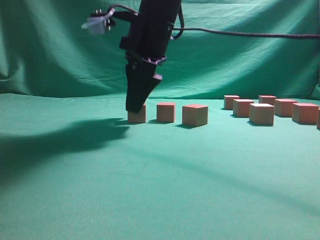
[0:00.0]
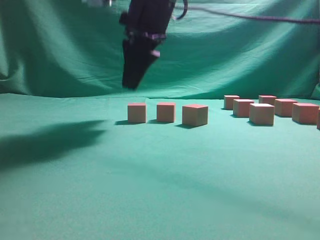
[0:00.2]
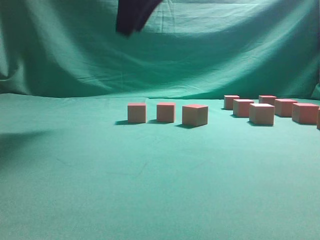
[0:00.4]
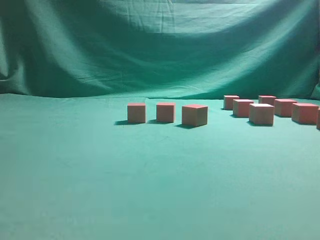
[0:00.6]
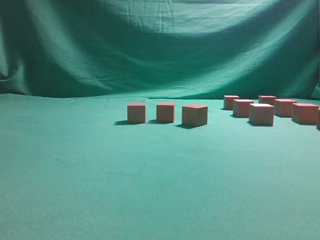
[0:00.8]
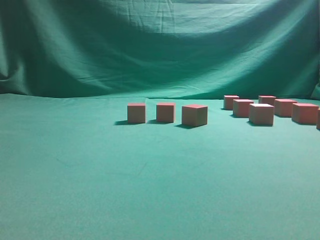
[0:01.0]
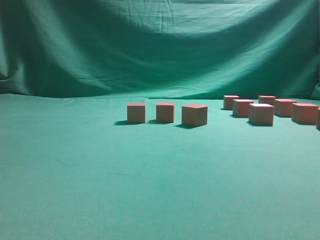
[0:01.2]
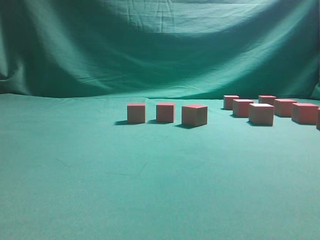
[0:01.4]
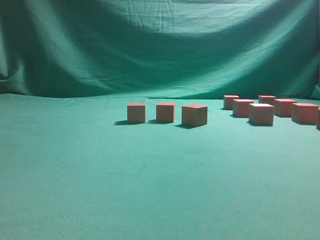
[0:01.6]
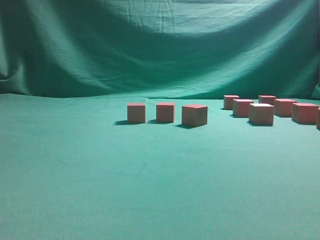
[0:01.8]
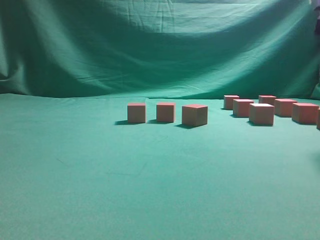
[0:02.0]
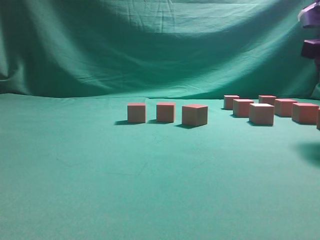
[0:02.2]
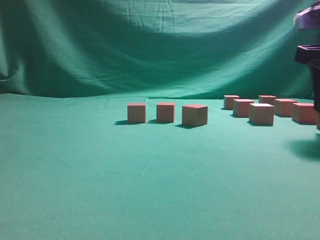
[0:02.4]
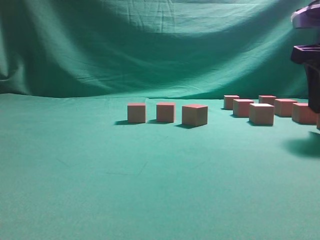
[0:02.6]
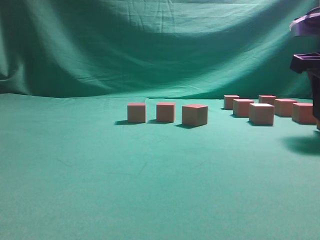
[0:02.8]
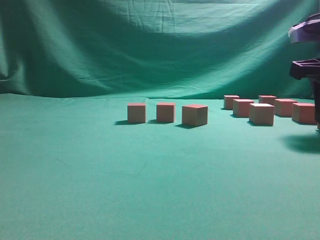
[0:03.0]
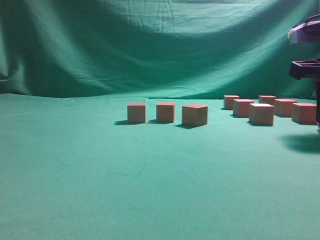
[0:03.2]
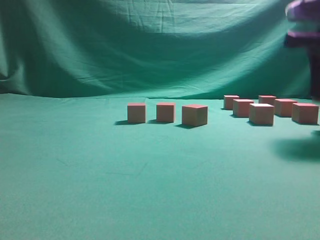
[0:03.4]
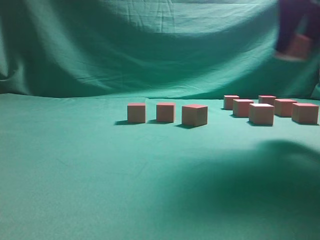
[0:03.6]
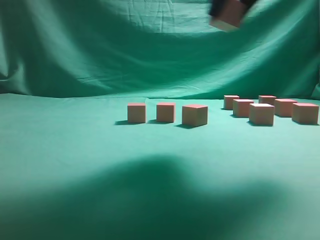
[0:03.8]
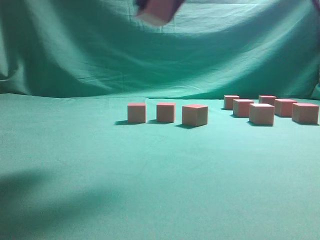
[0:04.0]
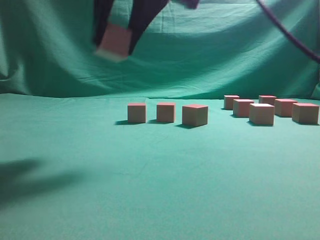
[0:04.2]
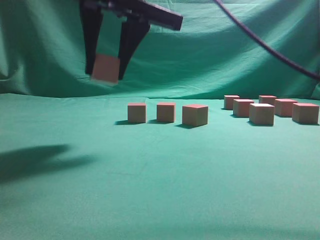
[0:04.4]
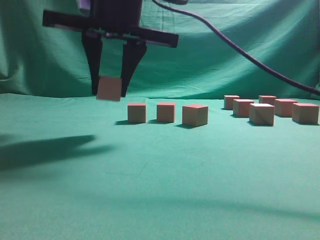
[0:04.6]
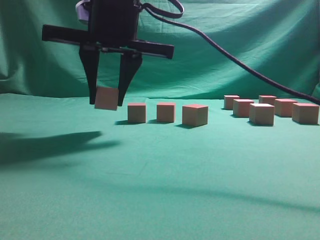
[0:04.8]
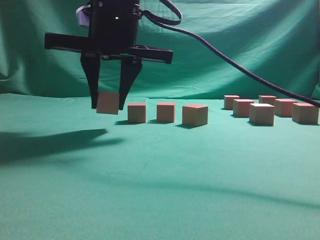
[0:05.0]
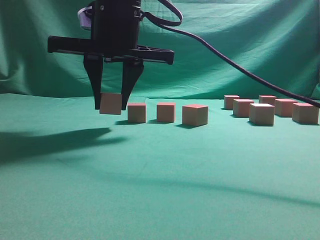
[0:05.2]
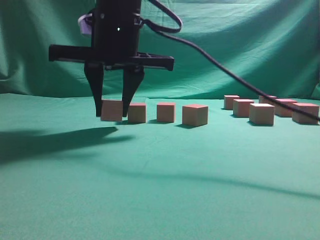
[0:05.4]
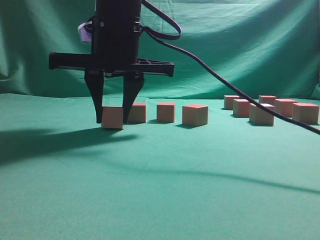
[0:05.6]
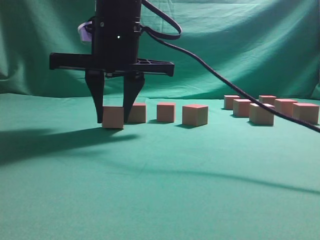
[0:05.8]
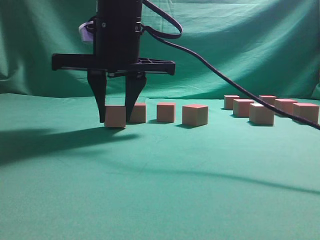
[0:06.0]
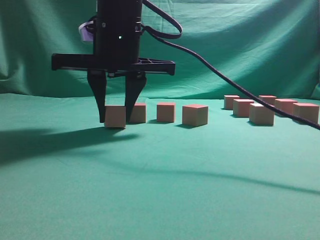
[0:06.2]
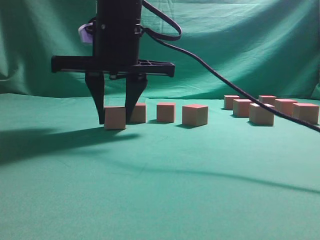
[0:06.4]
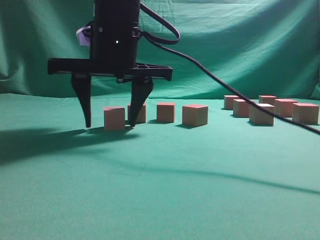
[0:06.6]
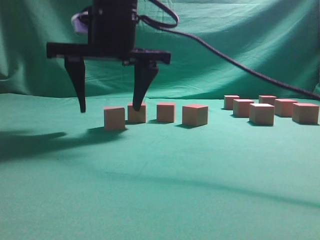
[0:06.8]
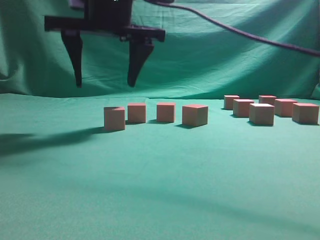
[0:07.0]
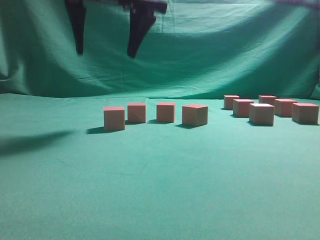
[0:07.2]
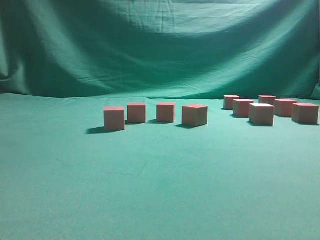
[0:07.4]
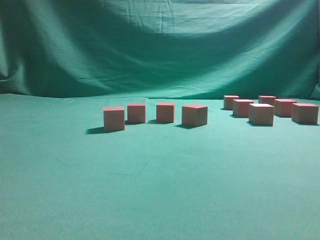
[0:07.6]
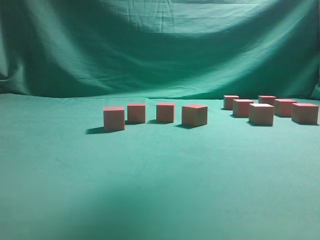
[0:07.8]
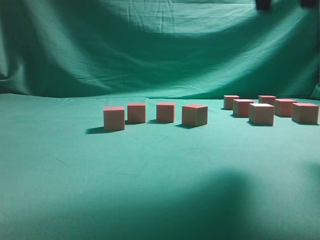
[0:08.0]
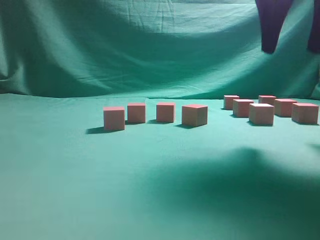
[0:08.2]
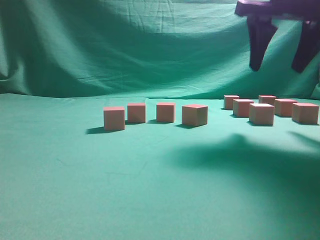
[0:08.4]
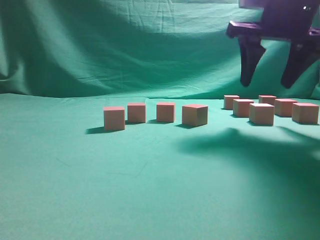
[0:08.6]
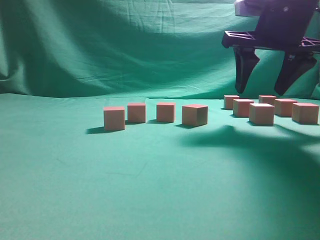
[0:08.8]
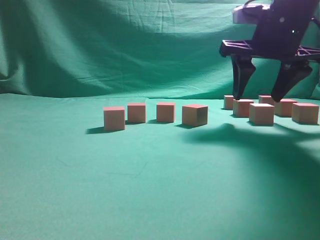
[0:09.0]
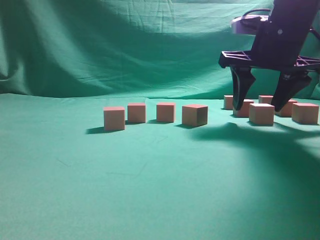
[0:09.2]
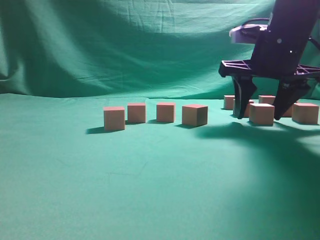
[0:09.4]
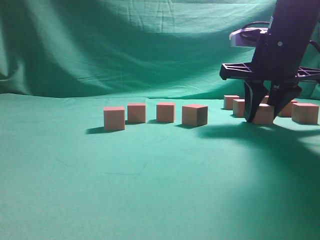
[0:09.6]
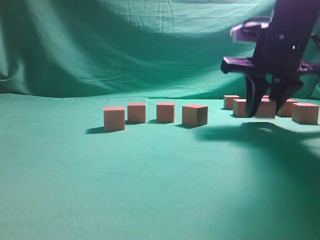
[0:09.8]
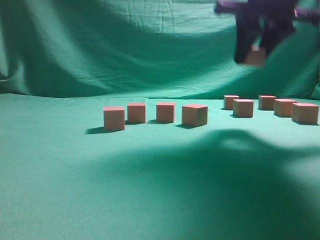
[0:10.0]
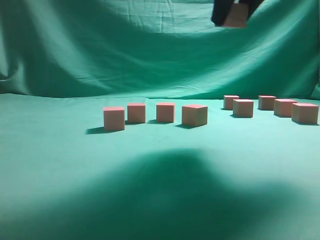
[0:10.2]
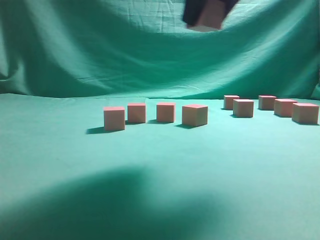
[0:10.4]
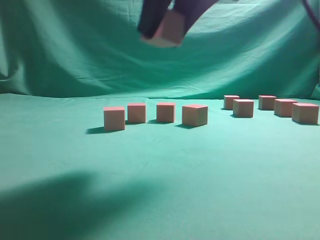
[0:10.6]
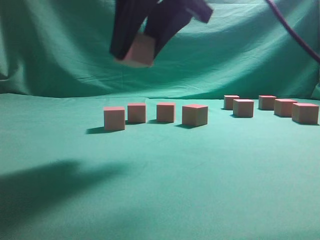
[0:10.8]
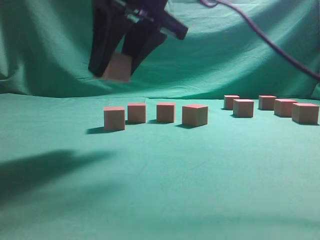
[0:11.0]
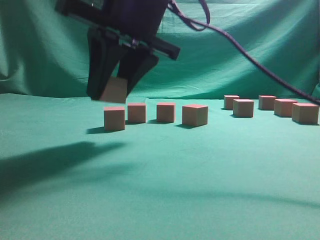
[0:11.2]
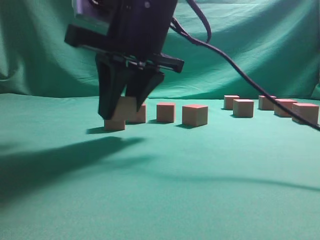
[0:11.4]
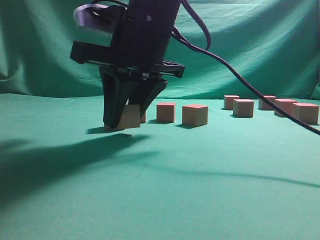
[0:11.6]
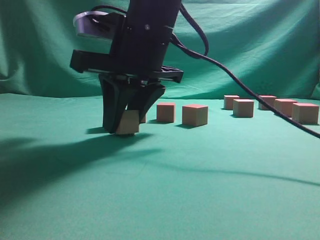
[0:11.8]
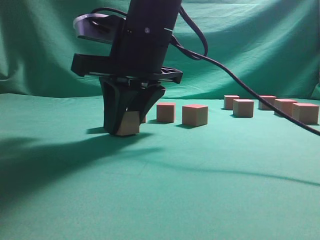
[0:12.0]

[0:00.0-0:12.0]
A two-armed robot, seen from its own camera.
Task of the whole recording: pick up the multiple cubes in two columns one by one and place them in another position on the table.
Step, 0:00.4 to 0:03.2: Pick up the block on the table.
Step, 0:03.6 to 0:07.0: Place the block at the correct position to assemble the letter S.
Step, 0:07.2 to 0:09.6: Pick up the block on the table.
0:00.0 to 0:01.6: The right gripper moves to the right and backward, some 30 cm.
0:01.6 to 0:03.0: The right gripper is displaced downward and forward by roughly 15 cm.
0:03.0 to 0:04.4: The right gripper is displaced to the left by some 30 cm.
0:04.4 to 0:06.0: The right gripper shifts some 5 cm downward.
0:06.0 to 0:07.6: The right gripper shifts about 20 cm upward, and opens up.
0:07.6 to 0:09.0: The right gripper shifts some 25 cm downward and to the right.
0:09.0 to 0:10.4: The right gripper travels backward, upward and to the left by roughly 15 cm, and closes its fingers.
0:10.4 to 0:12.0: The right gripper moves downward, to the left and forward, roughly 15 cm.

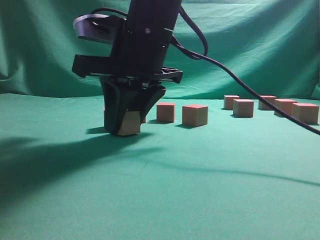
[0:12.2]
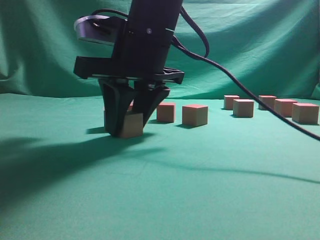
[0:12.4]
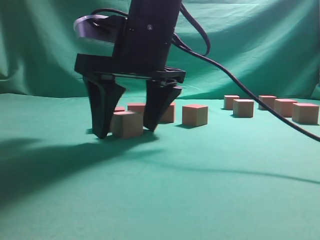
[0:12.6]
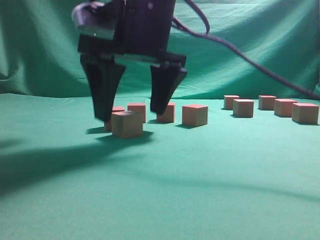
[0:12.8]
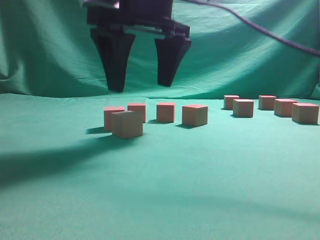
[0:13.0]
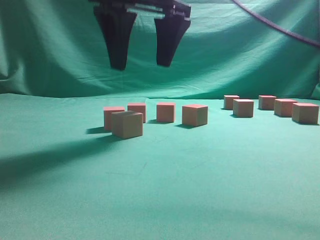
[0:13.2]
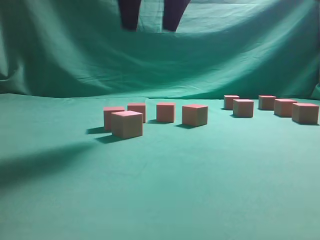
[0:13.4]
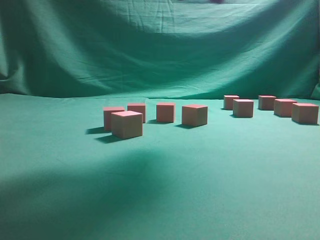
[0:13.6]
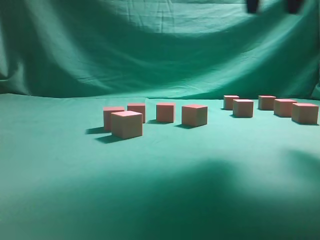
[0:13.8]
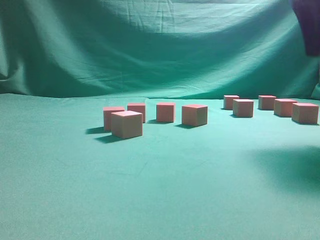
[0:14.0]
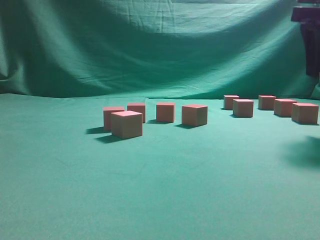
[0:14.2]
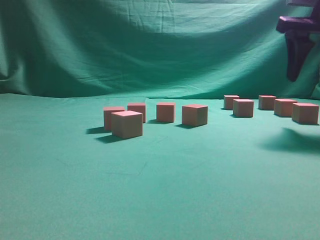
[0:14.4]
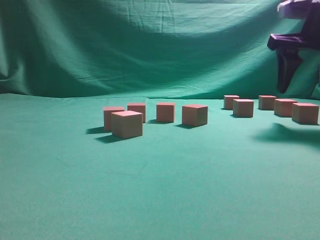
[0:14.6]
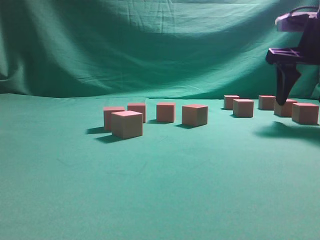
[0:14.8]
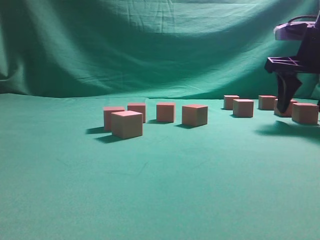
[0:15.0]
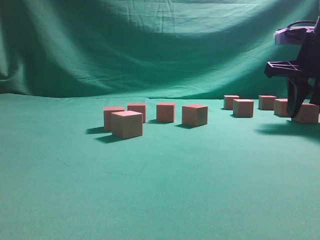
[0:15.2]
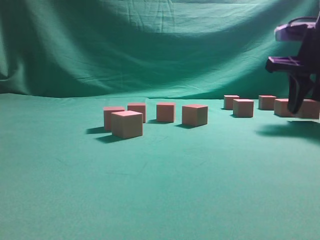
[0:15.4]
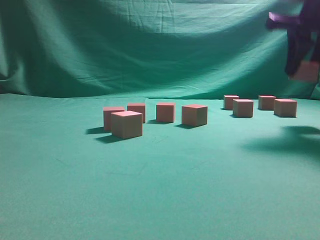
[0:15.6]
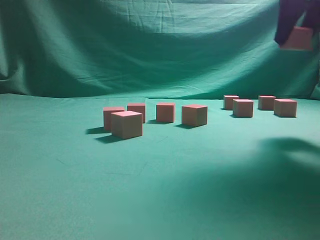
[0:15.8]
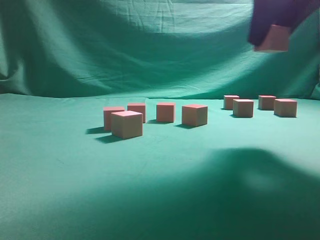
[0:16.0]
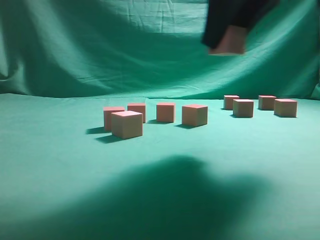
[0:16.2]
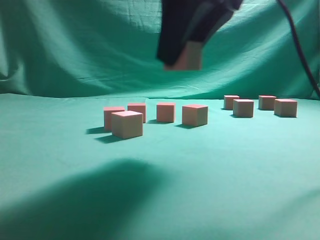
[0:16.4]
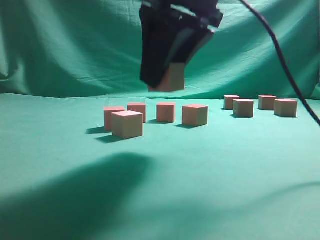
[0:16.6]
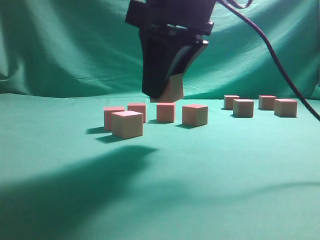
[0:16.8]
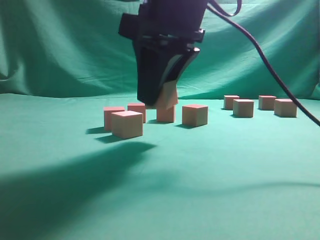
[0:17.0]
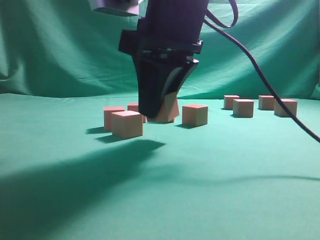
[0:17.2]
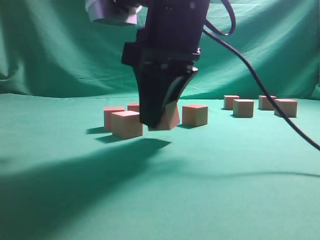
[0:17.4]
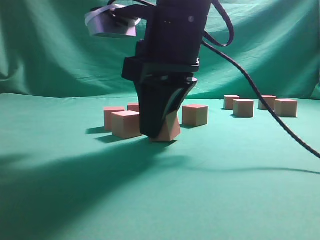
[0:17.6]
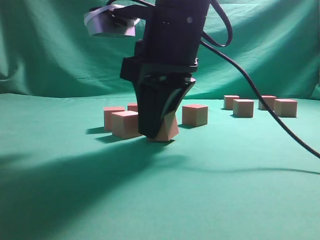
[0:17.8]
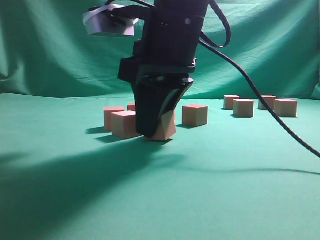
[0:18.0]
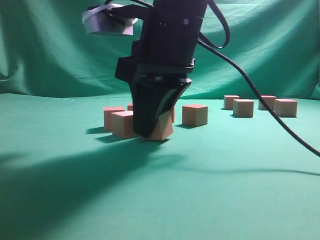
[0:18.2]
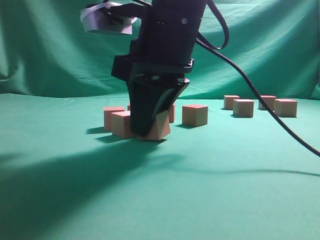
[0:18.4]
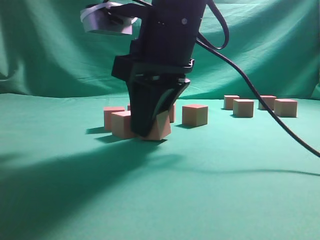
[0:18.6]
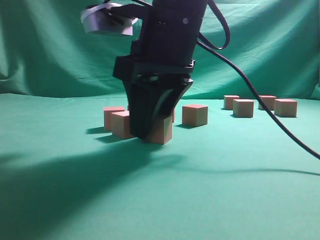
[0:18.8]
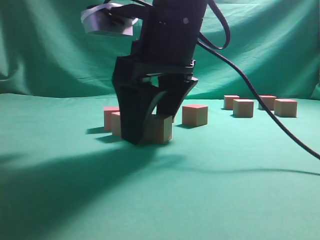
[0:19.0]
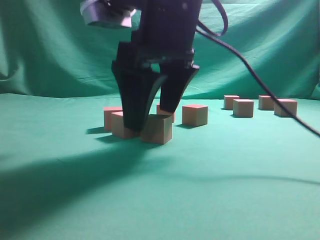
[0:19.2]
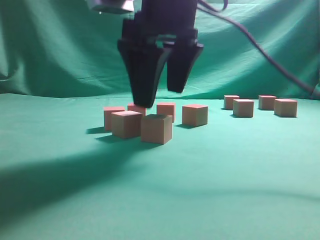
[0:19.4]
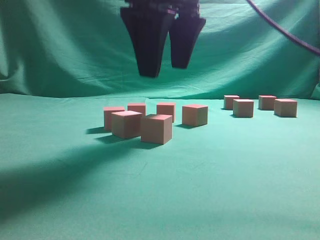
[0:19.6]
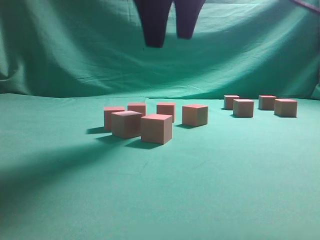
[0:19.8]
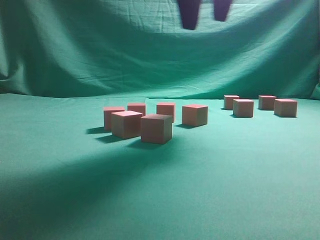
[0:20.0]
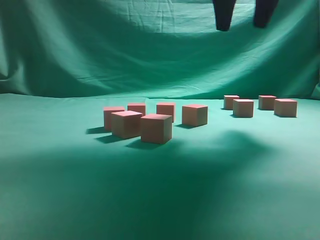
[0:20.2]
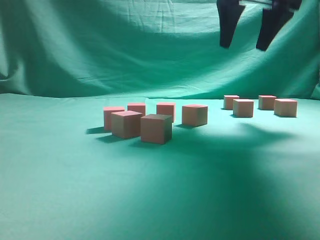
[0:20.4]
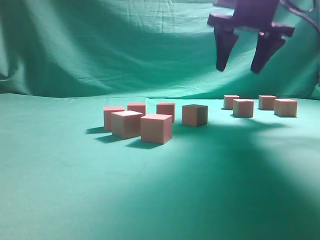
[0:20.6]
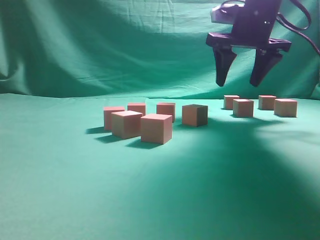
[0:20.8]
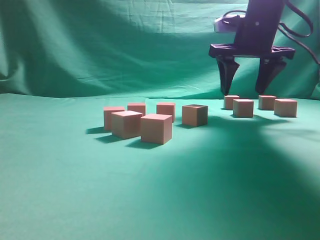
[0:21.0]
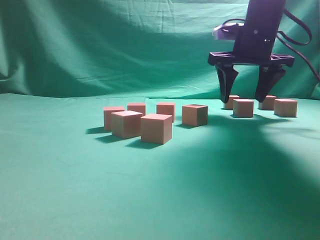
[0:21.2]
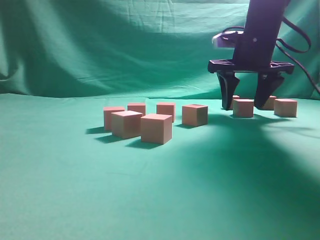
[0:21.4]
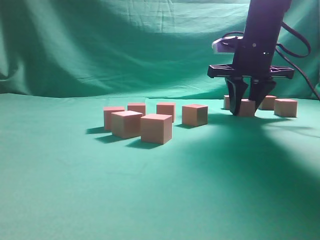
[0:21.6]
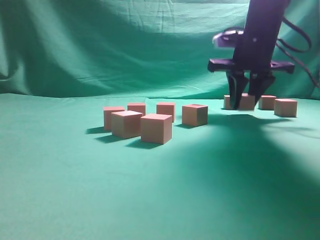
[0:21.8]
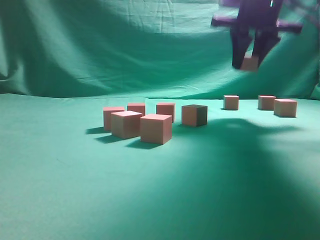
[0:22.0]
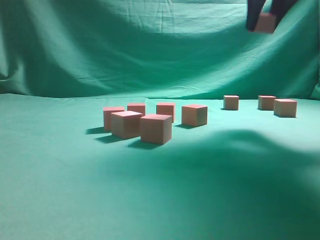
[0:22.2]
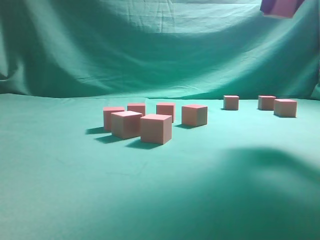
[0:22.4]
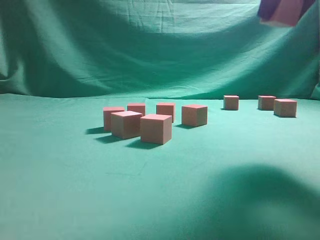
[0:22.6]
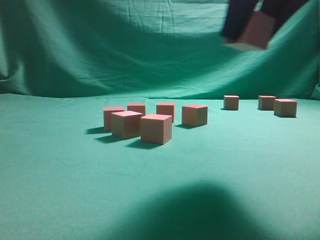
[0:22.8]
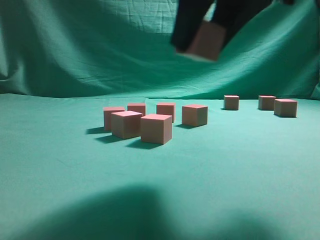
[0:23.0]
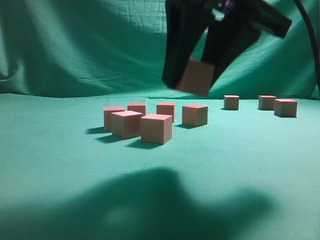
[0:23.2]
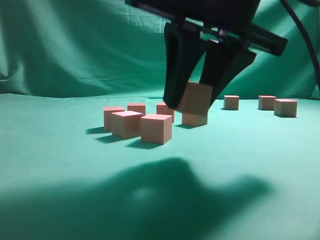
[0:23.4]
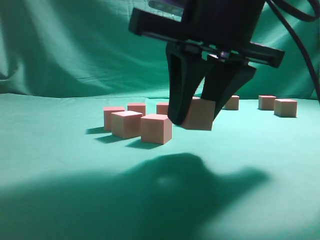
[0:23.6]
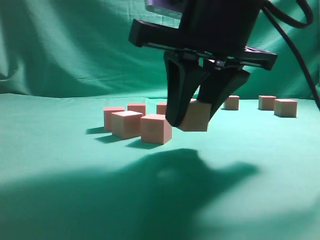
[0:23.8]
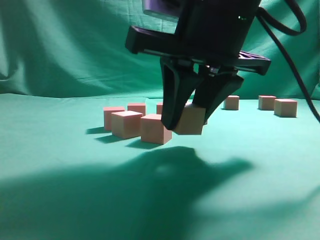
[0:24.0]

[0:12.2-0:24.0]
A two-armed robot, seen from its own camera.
Task of the whole recording: pick up the multiple cubes in two columns one by one and place them in another position on the table.
Step, 0:13.2 to 0:15.4: Pick up the block on the table.
Step, 0:15.6 to 0:19.6: Place the block at the correct position to assemble the letter S.
Step, 0:19.8 to 0:21.8: Pick up the block on the table.
0:12.2 to 0:13.6: The right gripper heads upward and to the right, covering approximately 20 cm, and opens its fingers.
0:13.6 to 0:15.2: The right gripper travels downward and to the right by roughly 25 cm, and closes its fingers.
0:15.2 to 0:16.6: The right gripper goes some 25 cm to the left and backward.
0:16.6 to 0:18.2: The right gripper moves about 5 cm.
0:18.2 to 0:19.6: The right gripper is displaced upward by some 10 cm, and opens.
0:19.6 to 0:21.0: The right gripper shifts some 20 cm to the right and forward.
0:21.0 to 0:22.6: The right gripper travels backward and upward by roughly 20 cm, and closes up.
0:22.6 to 0:24.0: The right gripper shifts approximately 15 cm downward and to the left.
